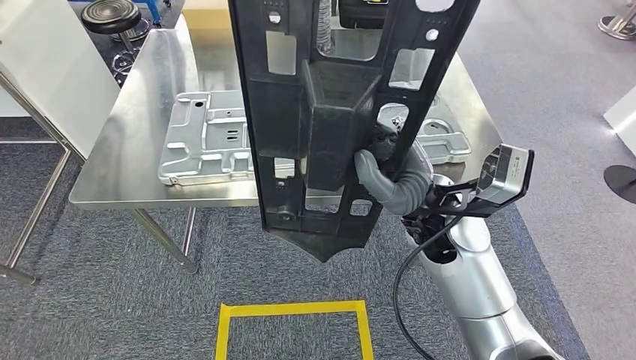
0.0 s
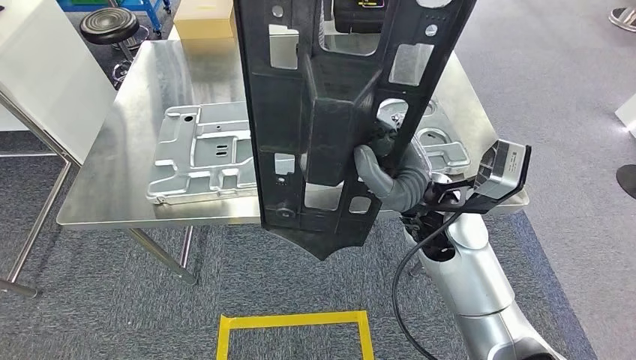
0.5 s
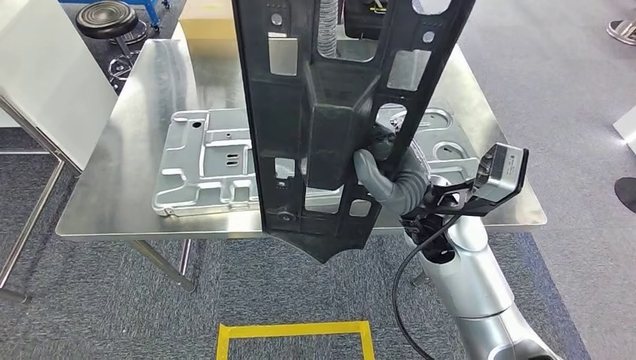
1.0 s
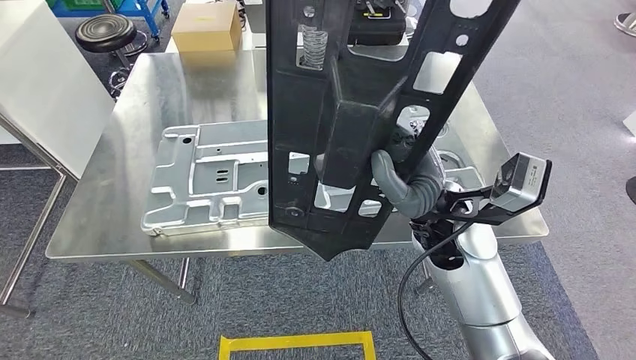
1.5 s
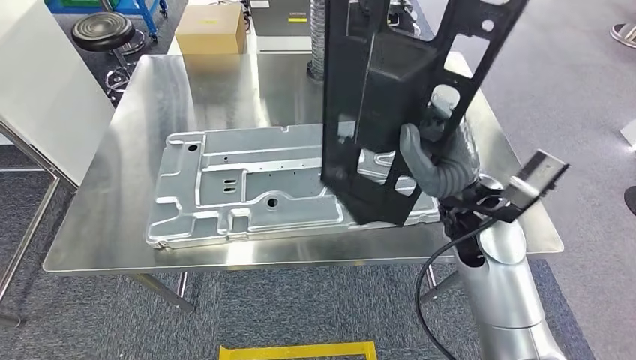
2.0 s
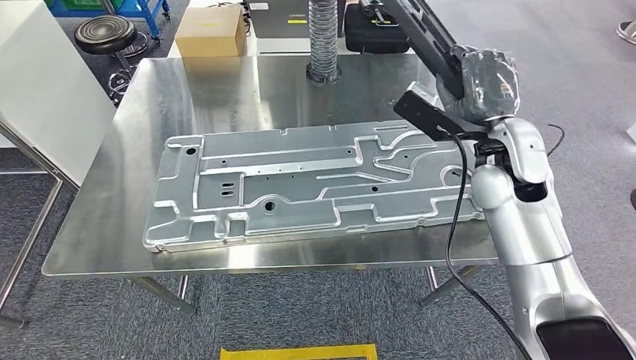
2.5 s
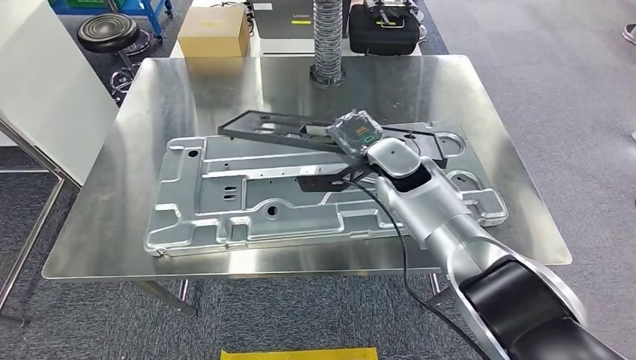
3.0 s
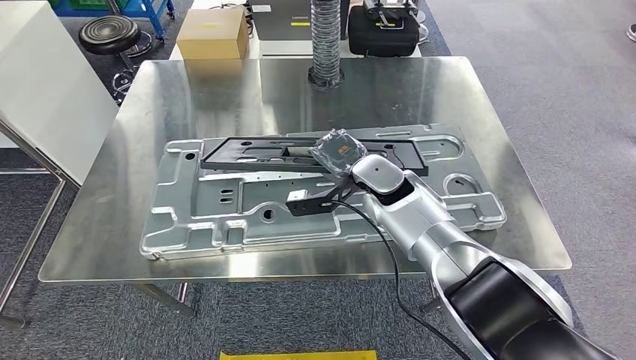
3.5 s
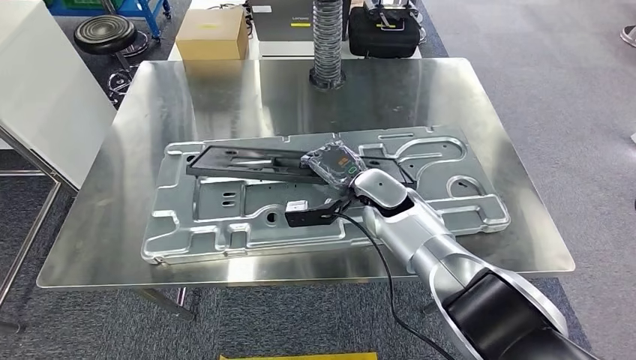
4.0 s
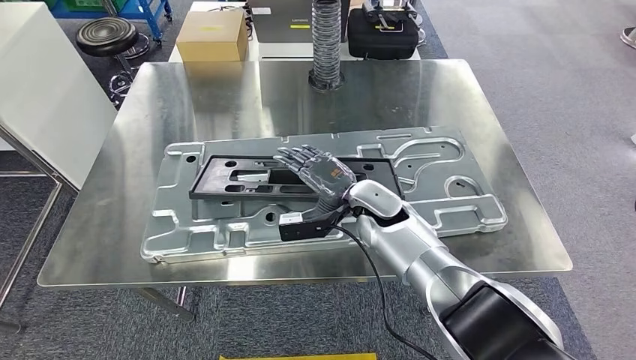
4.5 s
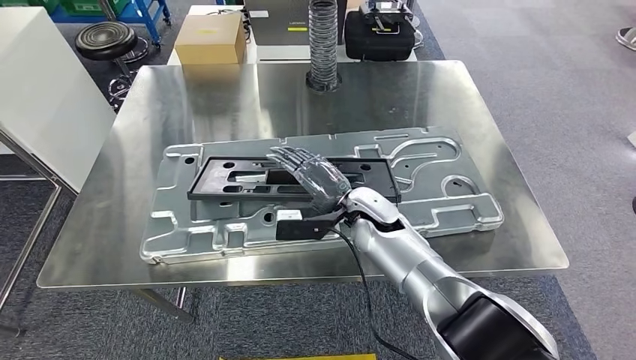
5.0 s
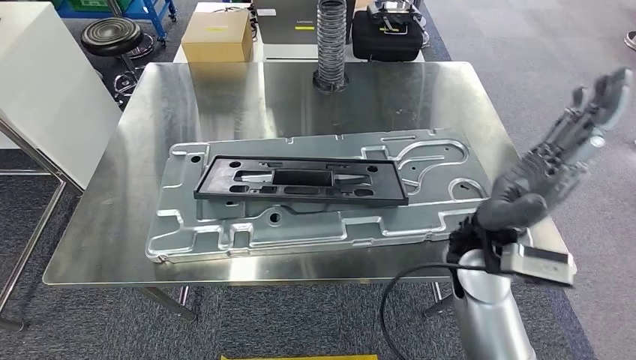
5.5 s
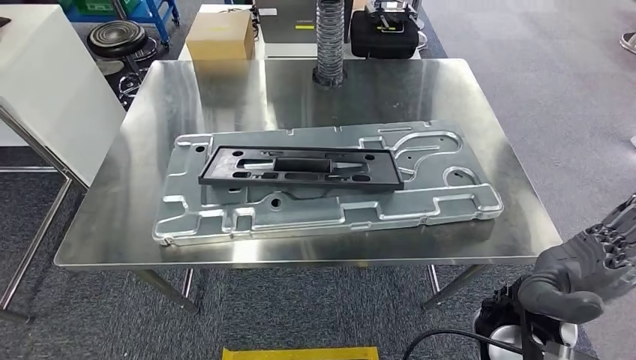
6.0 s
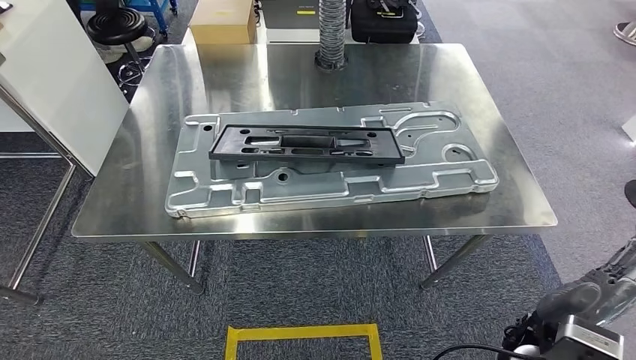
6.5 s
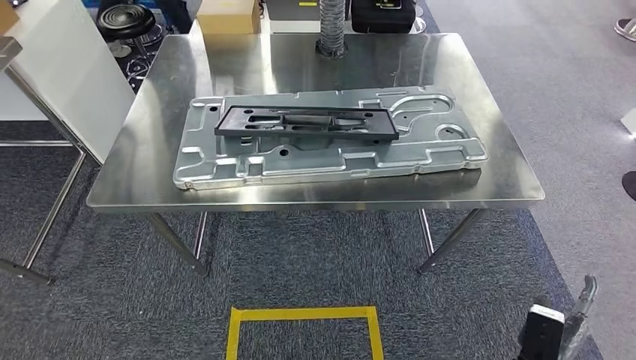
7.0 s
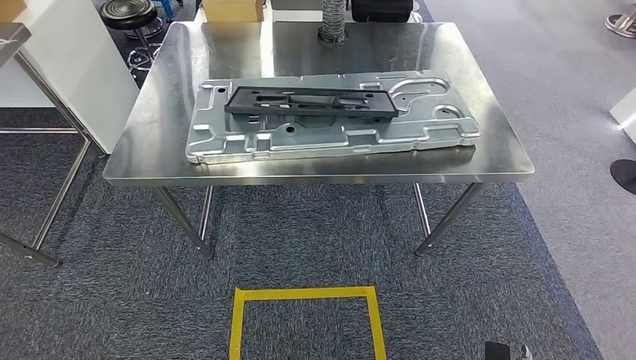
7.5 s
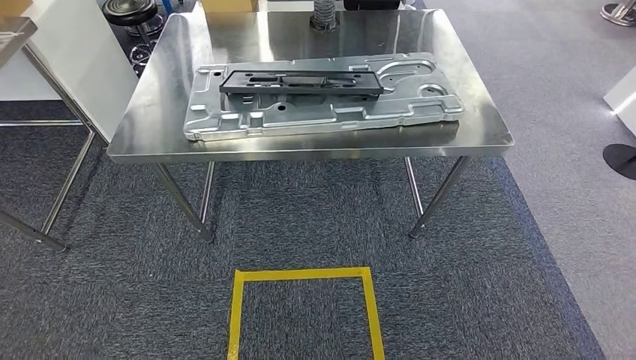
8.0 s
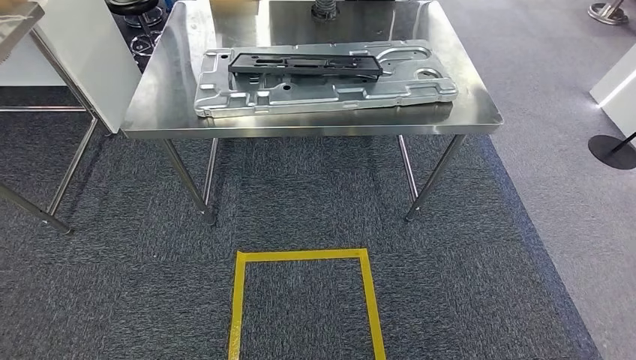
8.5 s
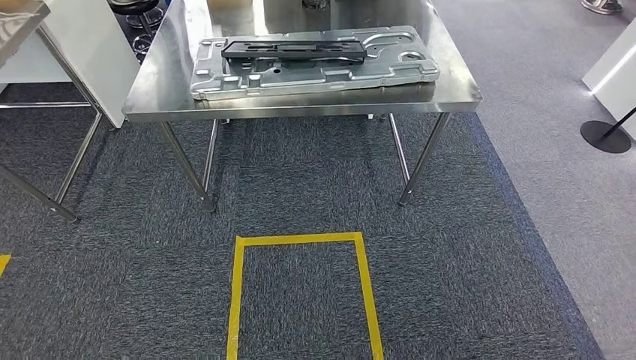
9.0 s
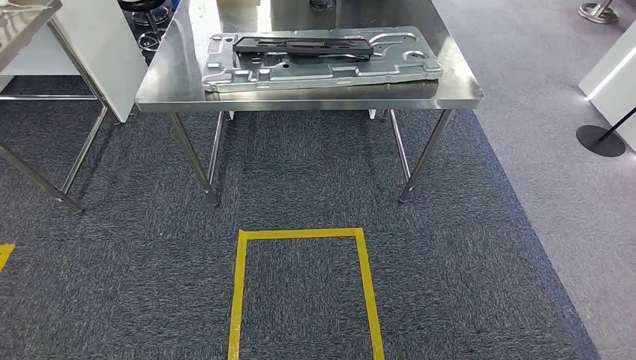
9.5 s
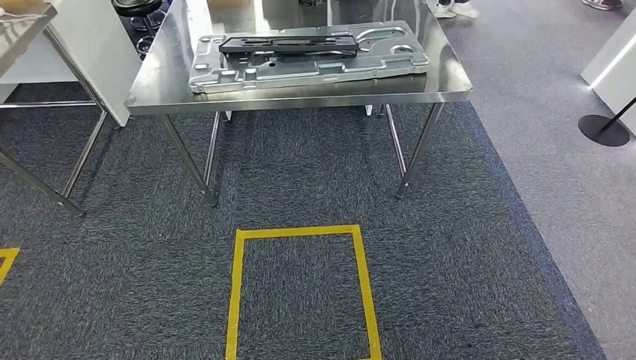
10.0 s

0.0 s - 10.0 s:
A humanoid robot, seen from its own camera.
Step, 0.0 s - 5.5 s: Insert the small component into the corresponding slot on the workbench.
Step, 6.5 s - 10.0 s: Return to the initial position at the workbench.
